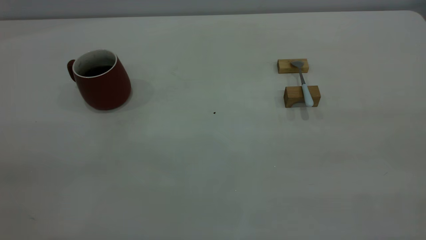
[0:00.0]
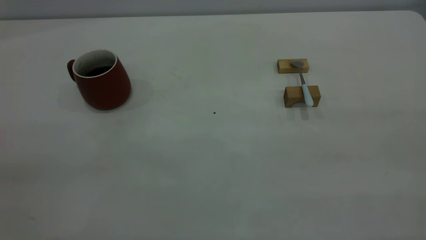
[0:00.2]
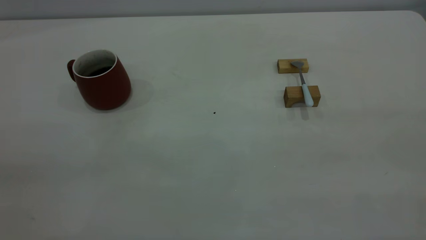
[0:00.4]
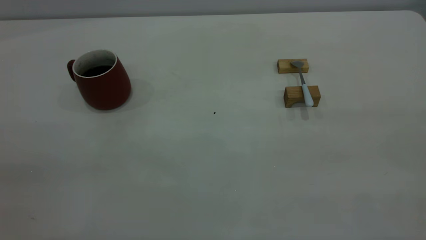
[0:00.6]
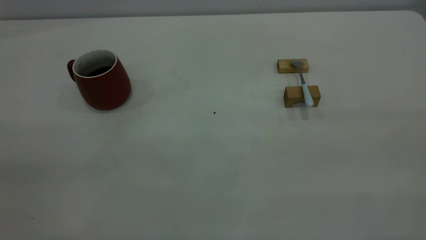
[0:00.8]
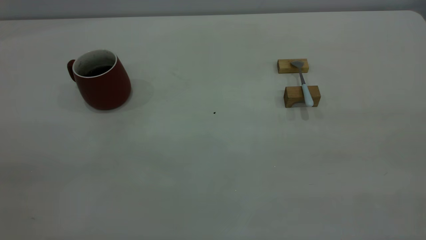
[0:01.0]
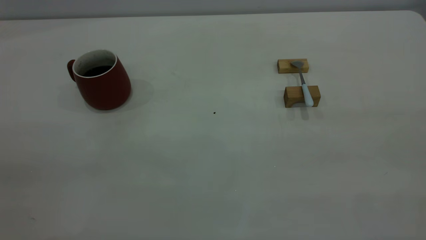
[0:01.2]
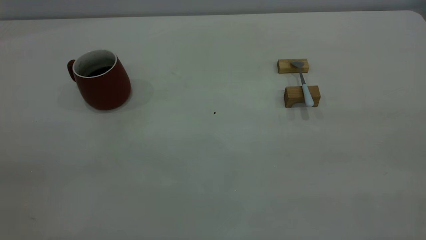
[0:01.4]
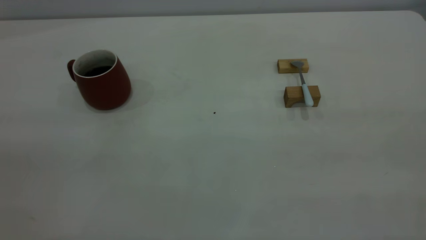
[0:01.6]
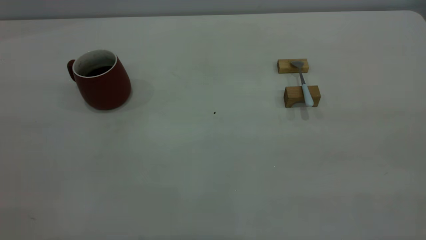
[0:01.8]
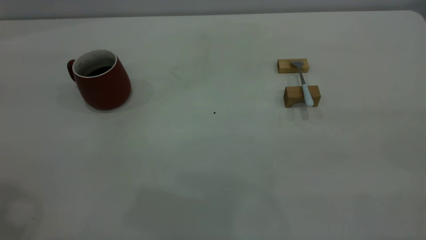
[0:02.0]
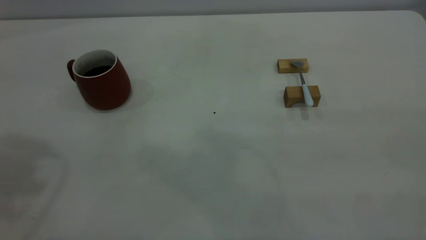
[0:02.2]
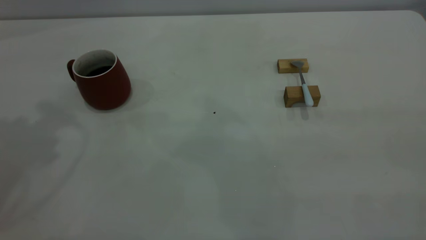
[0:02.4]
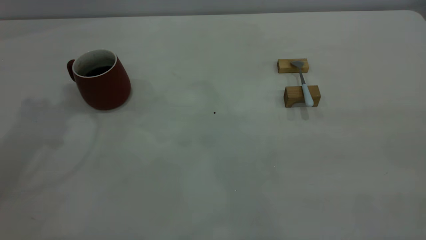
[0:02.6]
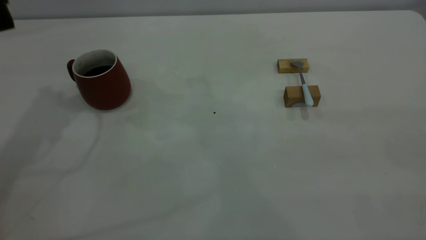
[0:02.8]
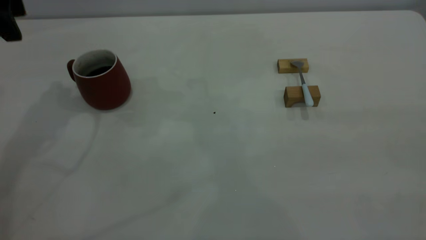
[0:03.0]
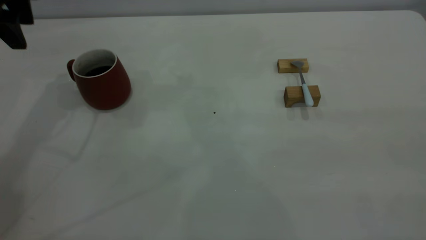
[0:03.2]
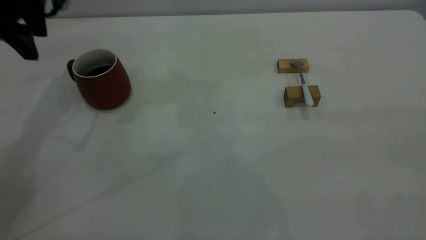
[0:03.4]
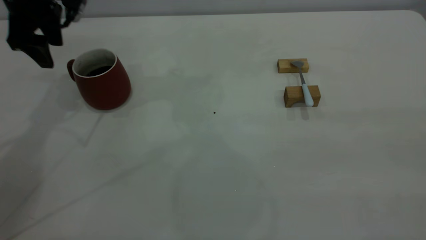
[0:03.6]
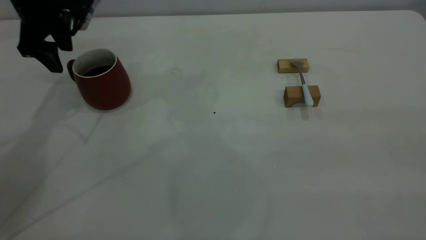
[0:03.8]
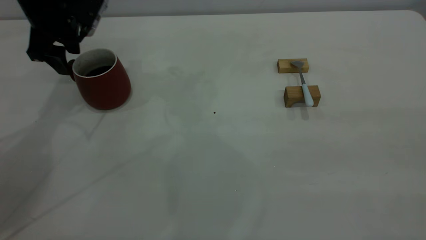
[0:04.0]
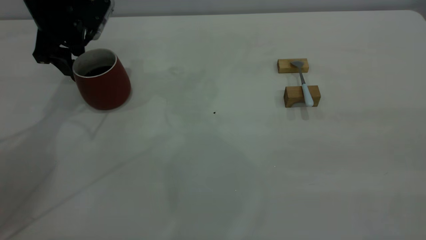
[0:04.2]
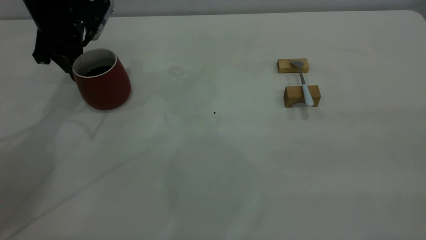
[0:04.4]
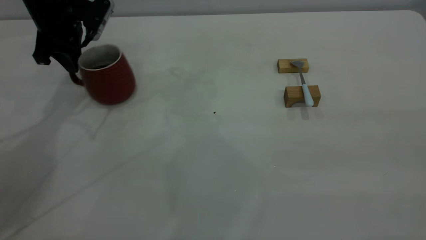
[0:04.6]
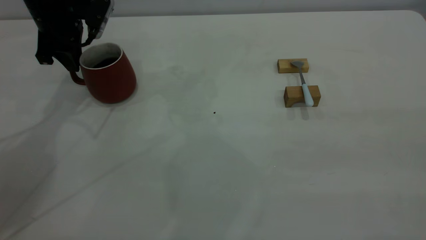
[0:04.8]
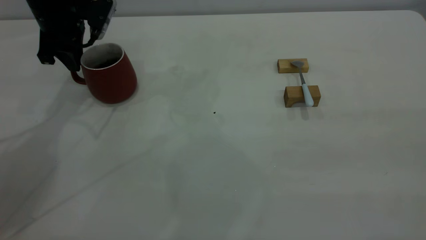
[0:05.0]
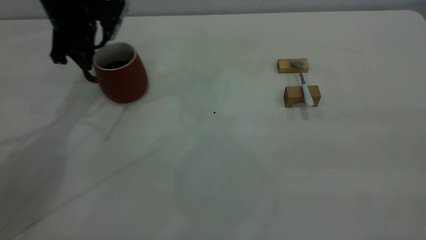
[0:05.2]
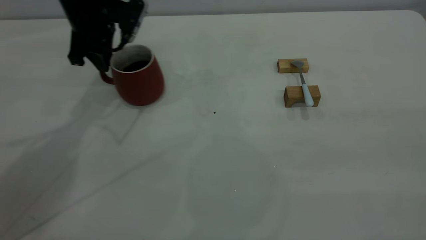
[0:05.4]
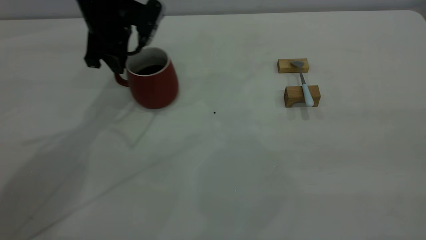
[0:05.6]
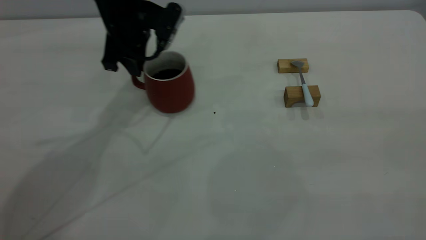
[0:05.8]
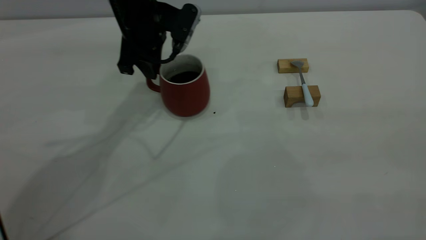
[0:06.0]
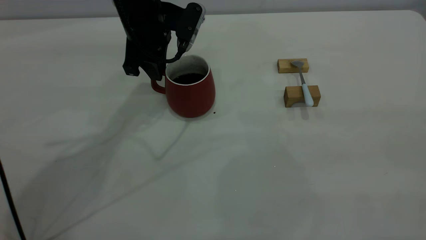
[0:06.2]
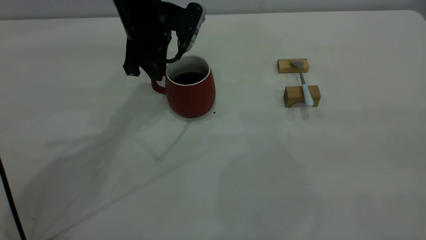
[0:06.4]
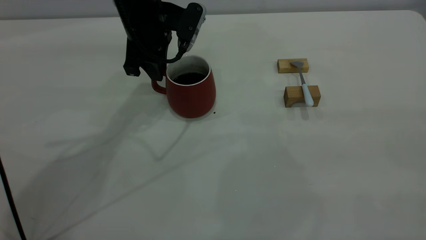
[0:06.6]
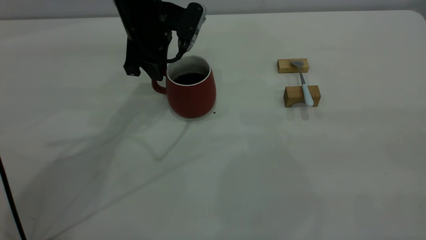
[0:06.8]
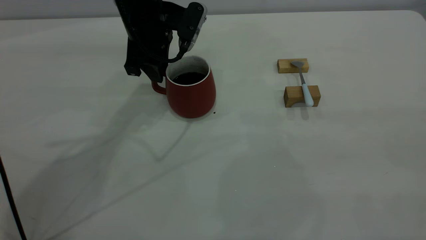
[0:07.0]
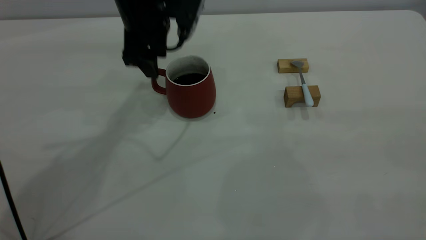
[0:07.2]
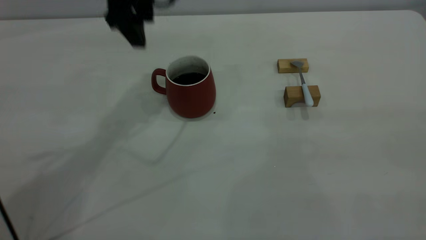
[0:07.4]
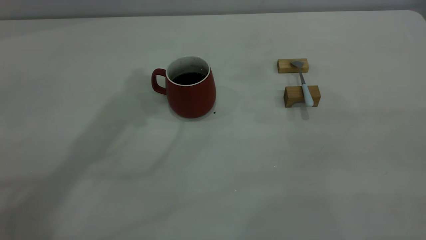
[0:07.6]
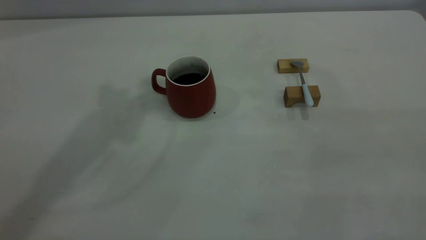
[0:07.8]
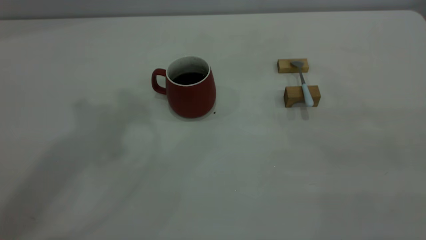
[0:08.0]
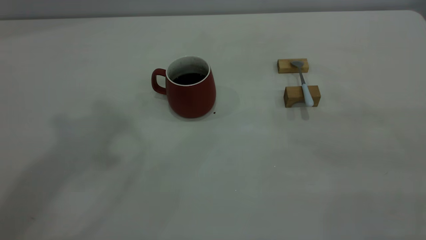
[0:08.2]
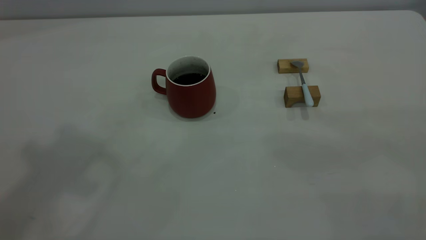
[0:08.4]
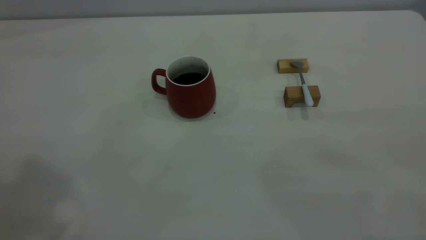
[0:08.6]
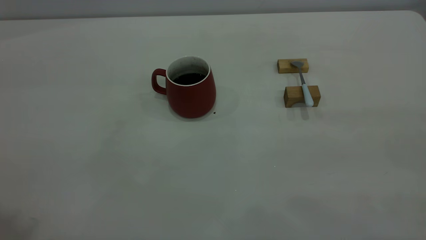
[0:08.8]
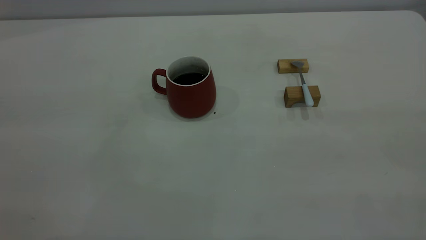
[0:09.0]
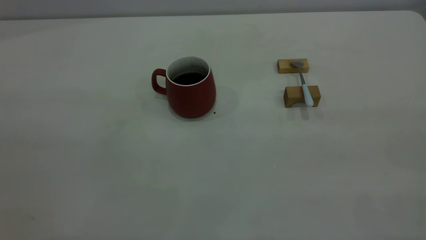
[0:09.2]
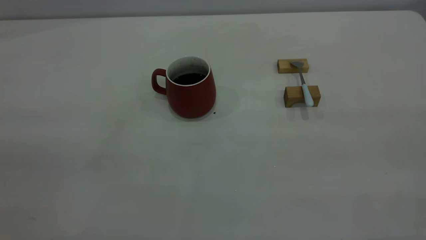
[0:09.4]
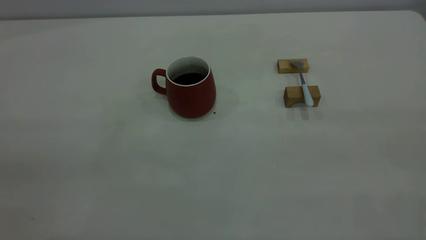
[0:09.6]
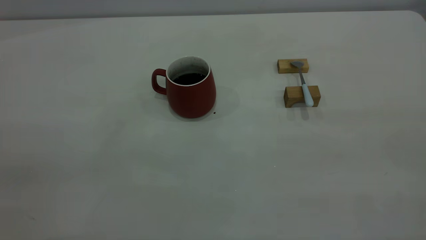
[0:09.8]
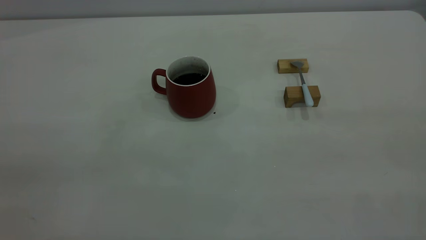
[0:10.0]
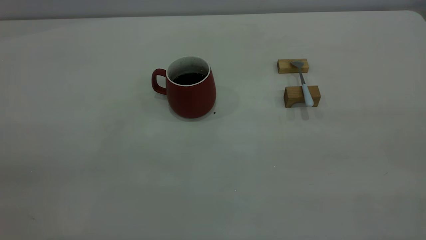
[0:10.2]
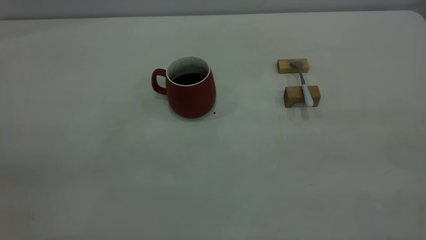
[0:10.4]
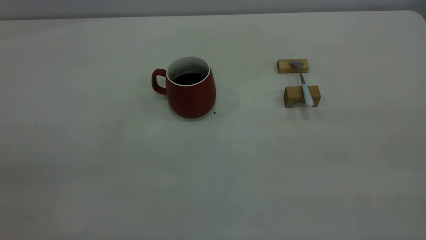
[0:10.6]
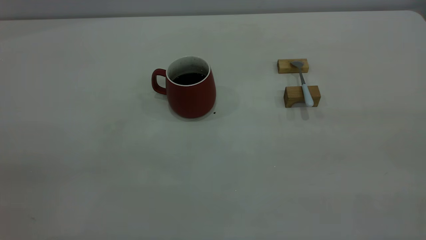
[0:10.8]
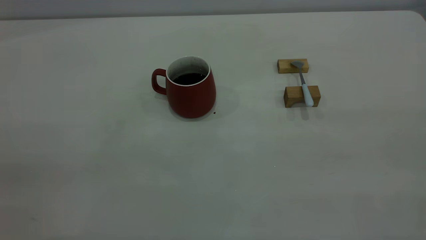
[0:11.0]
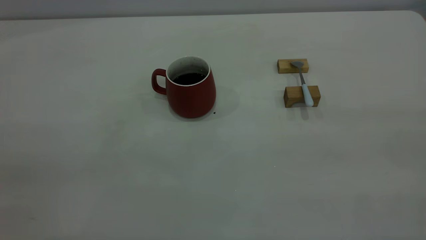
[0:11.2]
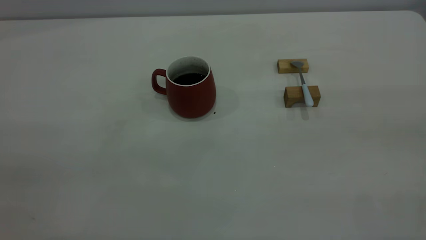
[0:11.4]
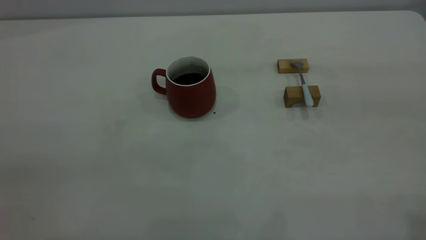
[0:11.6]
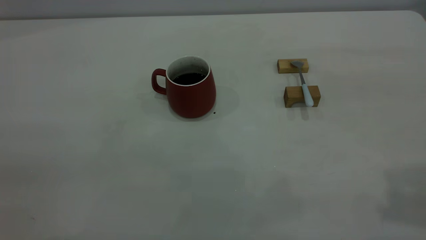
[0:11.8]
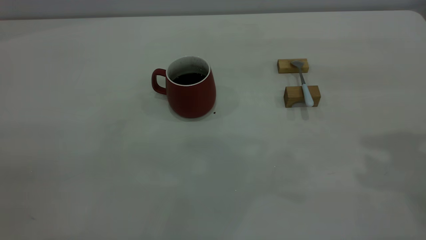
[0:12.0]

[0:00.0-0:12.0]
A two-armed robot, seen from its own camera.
Step, 0:00.0 to 0:07.2: Move the cup with coffee to the center of view.
0:01.6 to 0:03.0: The left gripper goes about 40 cm forward, and opens up.
0:03.0 to 0:04.4: The left gripper goes some 15 cm downward and forward, and closes up.
0:04.4 to 0:06.0: The left gripper travels to the right by some 15 cm.
0:06.0 to 0:07.6: The left gripper heads upward, covering some 20 cm, and opens up.

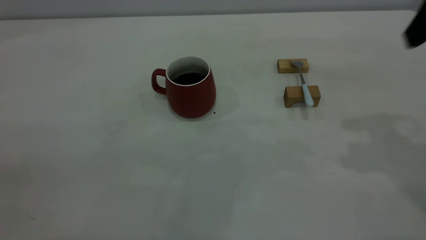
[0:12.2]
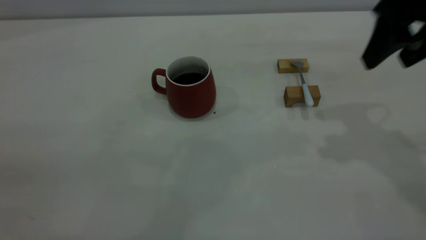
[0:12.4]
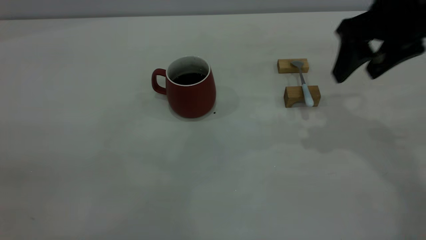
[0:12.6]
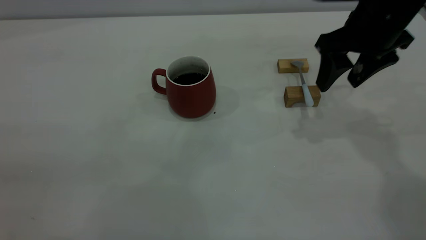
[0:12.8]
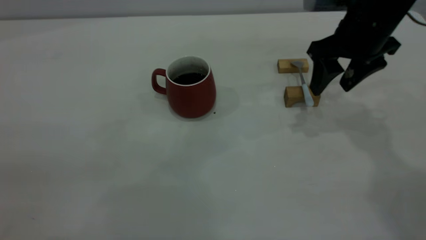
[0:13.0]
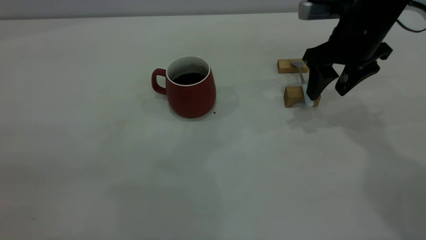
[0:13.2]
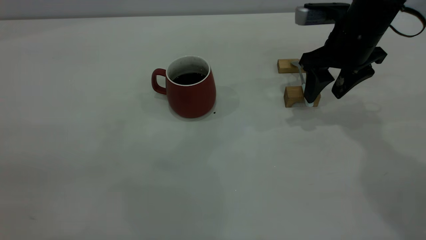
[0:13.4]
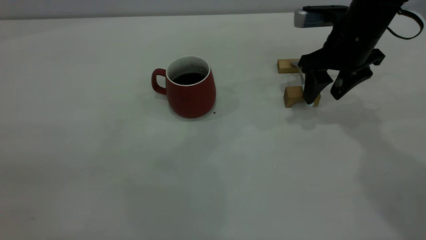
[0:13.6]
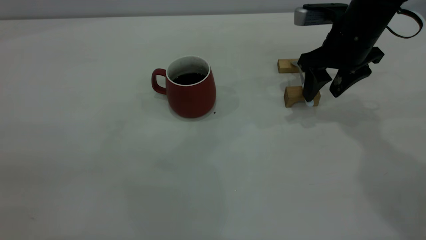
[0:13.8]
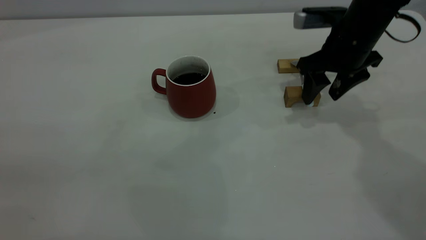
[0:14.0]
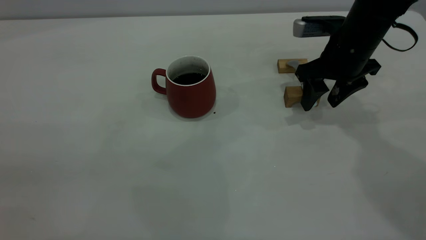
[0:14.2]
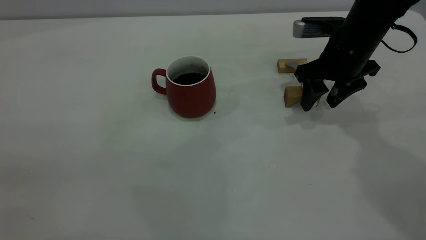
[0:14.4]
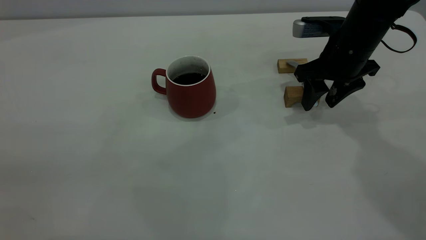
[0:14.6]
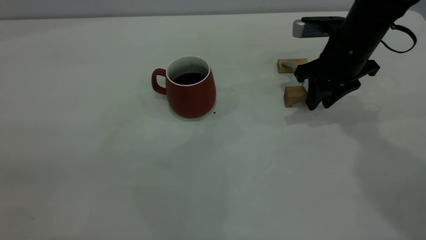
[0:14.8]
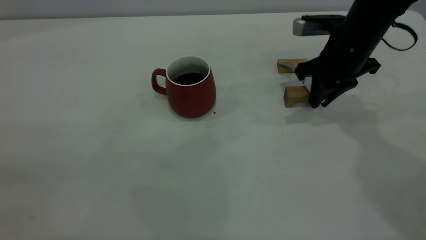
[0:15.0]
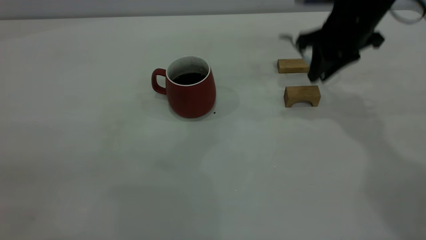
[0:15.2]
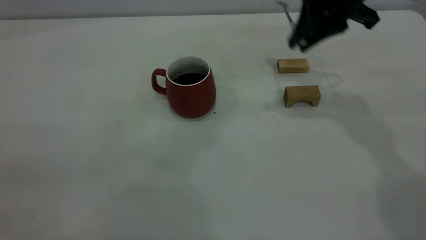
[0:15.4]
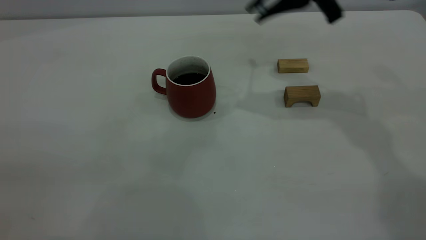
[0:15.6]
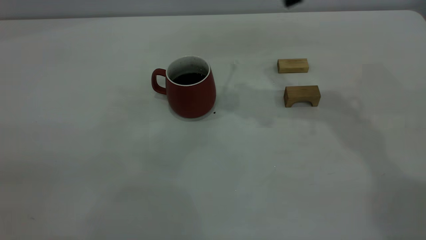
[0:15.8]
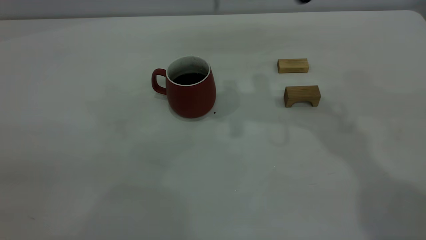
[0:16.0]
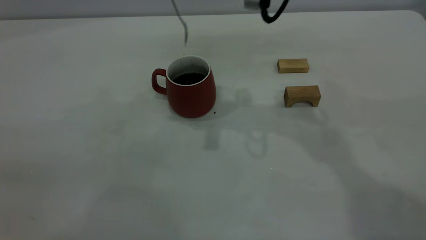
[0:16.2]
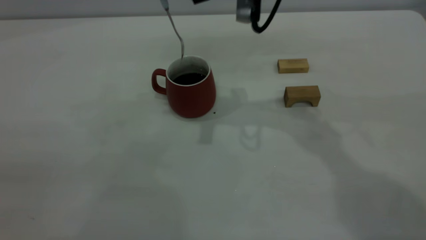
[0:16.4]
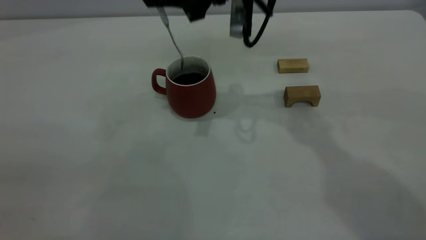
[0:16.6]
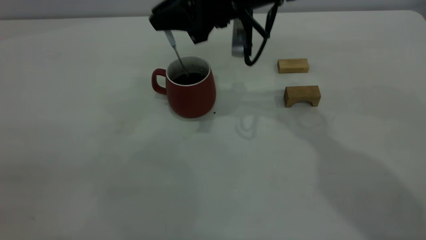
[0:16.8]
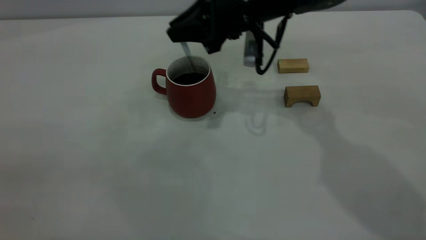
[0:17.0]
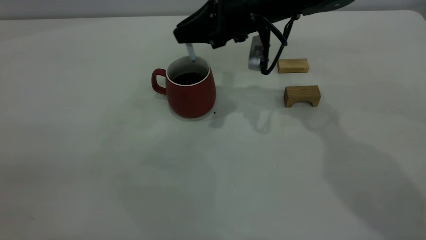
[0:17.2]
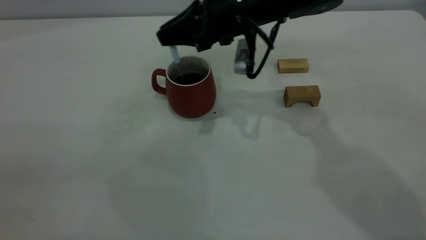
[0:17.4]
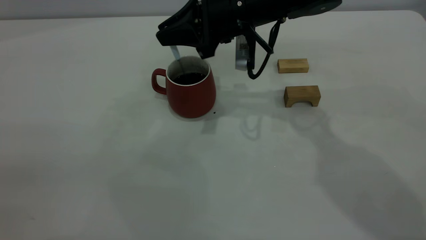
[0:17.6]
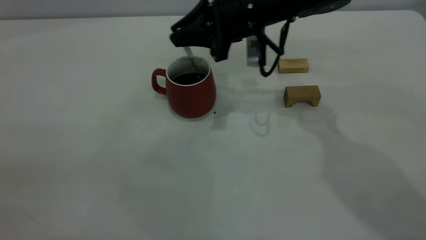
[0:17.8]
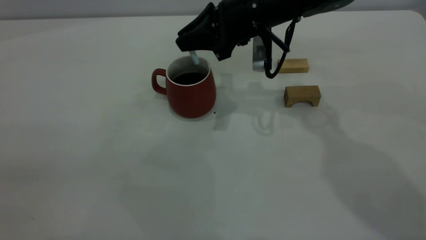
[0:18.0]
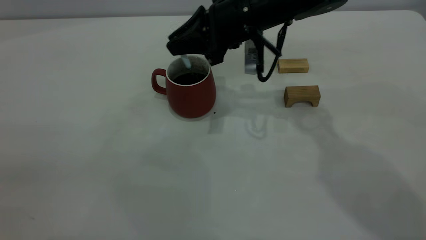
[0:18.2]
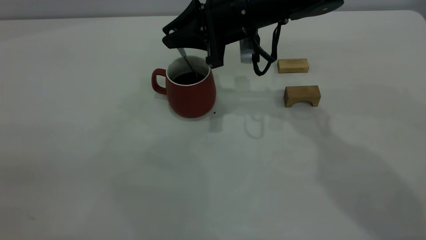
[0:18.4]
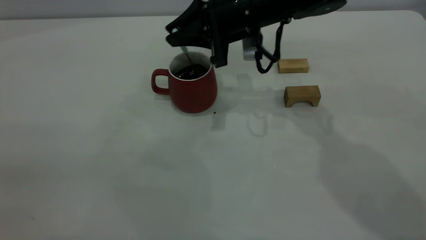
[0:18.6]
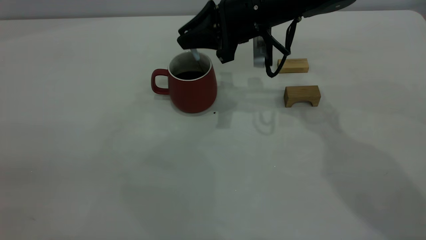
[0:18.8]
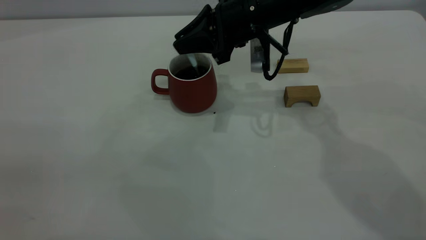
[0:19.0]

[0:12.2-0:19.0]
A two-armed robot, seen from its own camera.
Step, 0:12.2 to 0:15.0: Pick up the spoon.
0:12.2 to 0:13.6: The right gripper is displaced downward, forward and to the left by some 20 cm.
0:13.6 to 0:15.0: The right gripper closes its fingers.
0:15.0 to 0:16.2: The right gripper goes about 20 cm upward and to the left.
0:16.2 to 0:17.6: The right gripper goes some 10 cm downward.
0:17.6 to 0:19.0: There are only small adjustments of the grippers.
